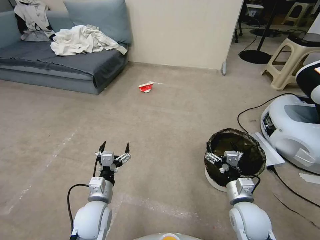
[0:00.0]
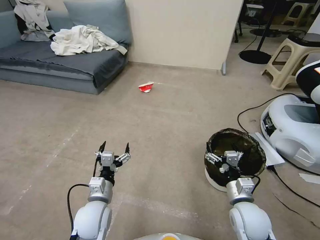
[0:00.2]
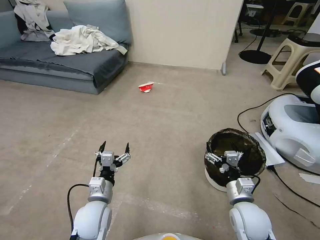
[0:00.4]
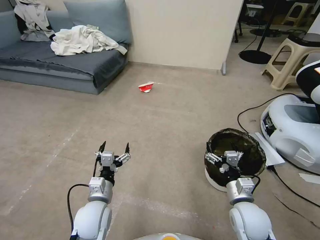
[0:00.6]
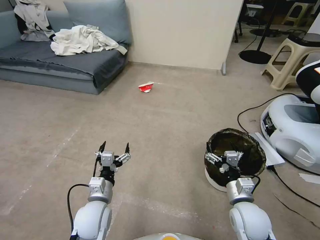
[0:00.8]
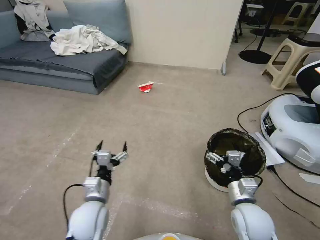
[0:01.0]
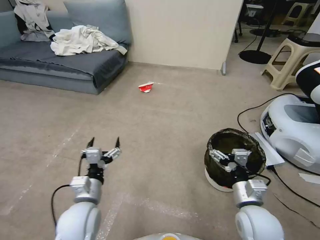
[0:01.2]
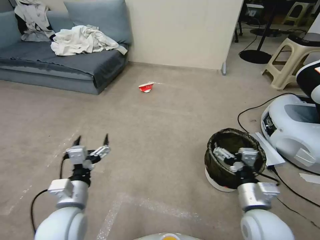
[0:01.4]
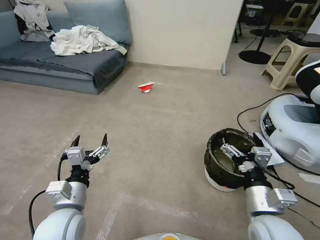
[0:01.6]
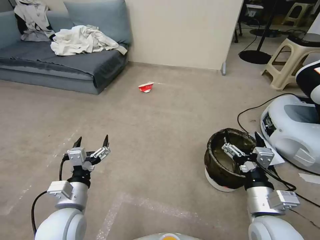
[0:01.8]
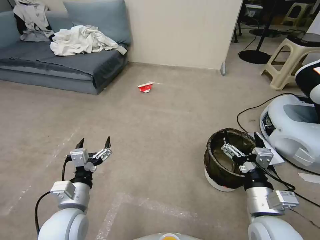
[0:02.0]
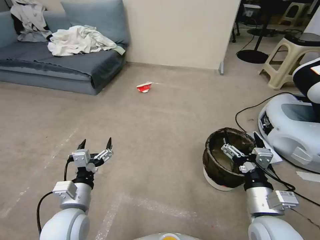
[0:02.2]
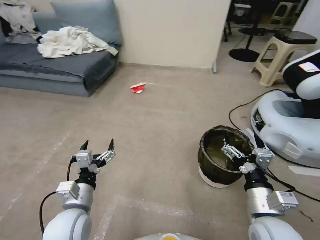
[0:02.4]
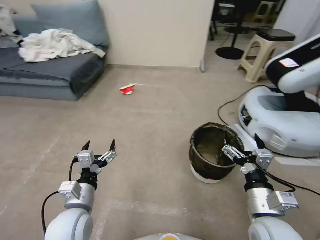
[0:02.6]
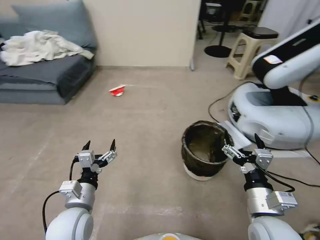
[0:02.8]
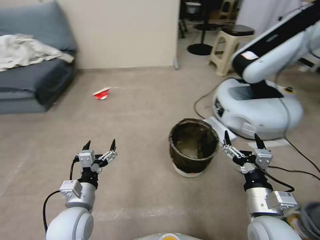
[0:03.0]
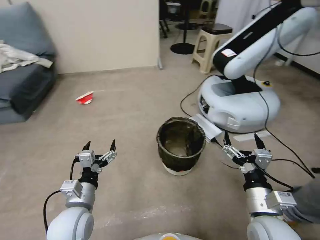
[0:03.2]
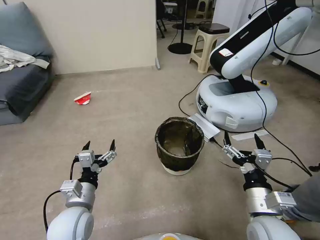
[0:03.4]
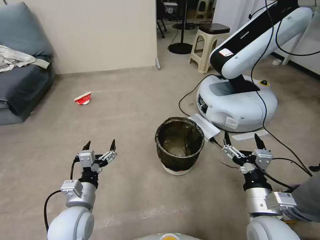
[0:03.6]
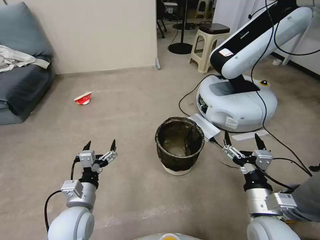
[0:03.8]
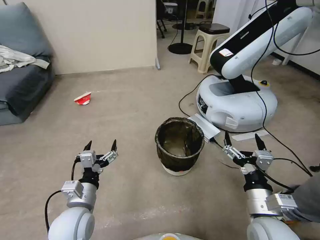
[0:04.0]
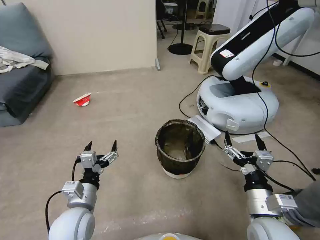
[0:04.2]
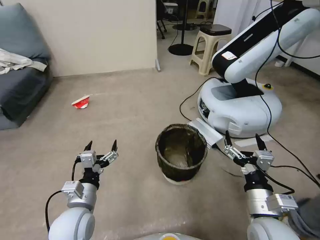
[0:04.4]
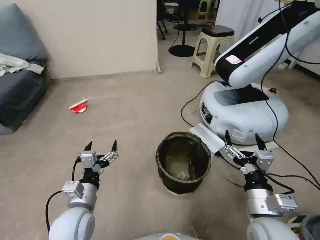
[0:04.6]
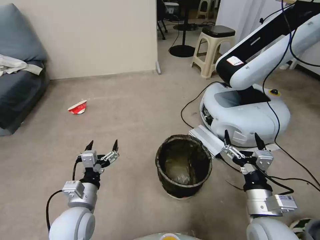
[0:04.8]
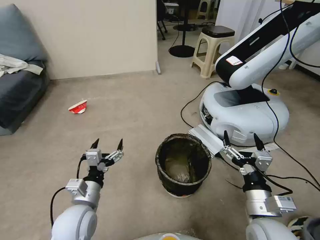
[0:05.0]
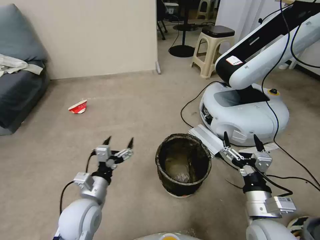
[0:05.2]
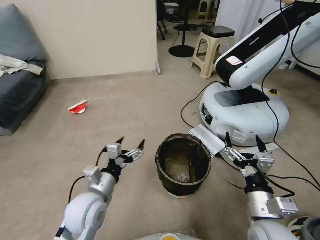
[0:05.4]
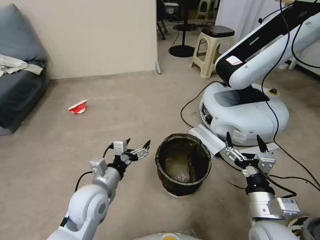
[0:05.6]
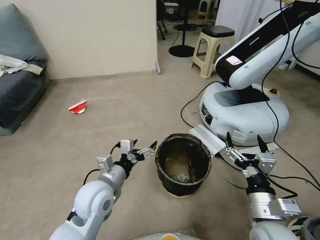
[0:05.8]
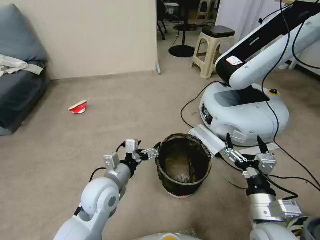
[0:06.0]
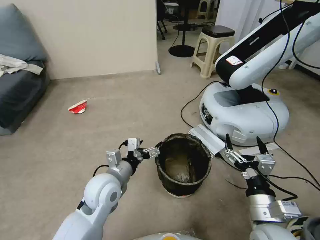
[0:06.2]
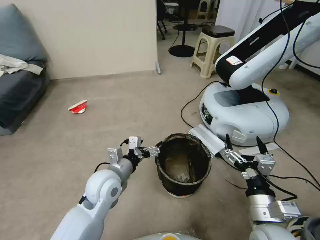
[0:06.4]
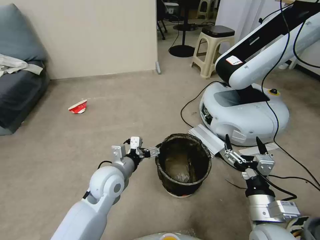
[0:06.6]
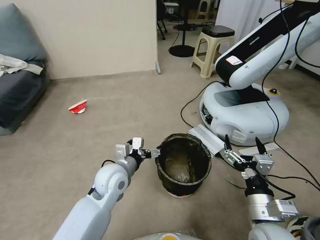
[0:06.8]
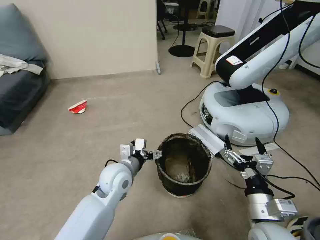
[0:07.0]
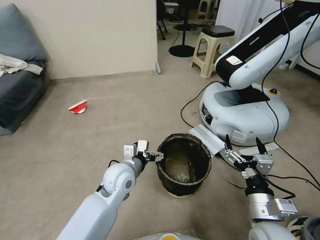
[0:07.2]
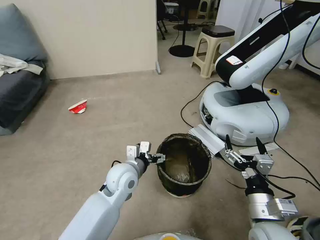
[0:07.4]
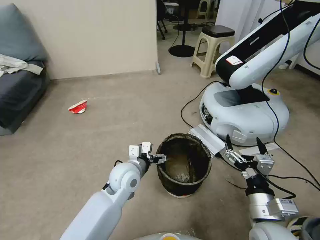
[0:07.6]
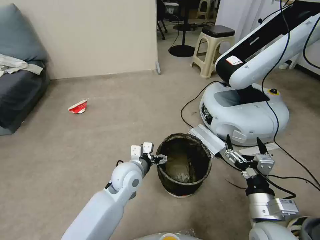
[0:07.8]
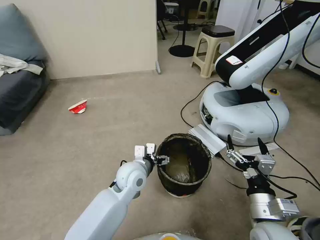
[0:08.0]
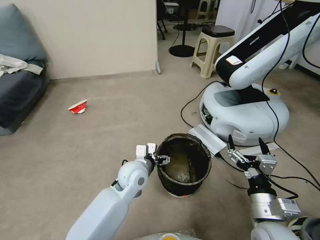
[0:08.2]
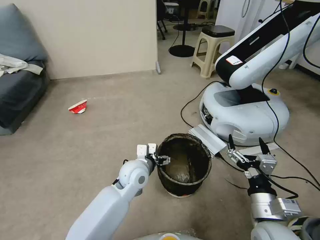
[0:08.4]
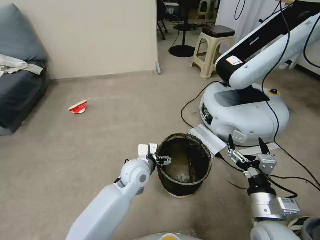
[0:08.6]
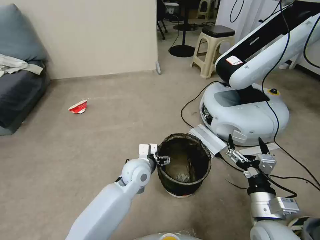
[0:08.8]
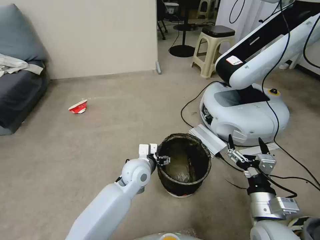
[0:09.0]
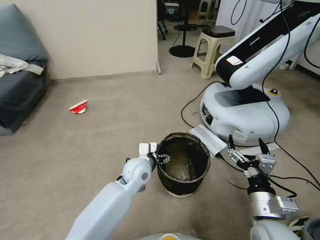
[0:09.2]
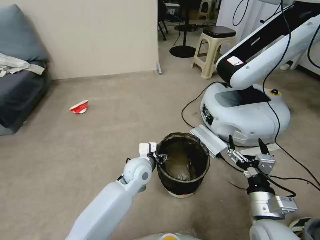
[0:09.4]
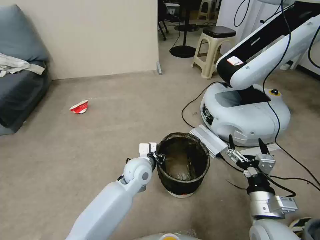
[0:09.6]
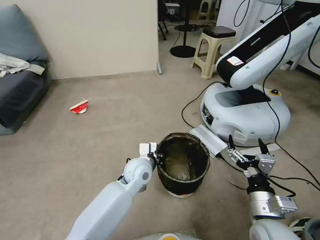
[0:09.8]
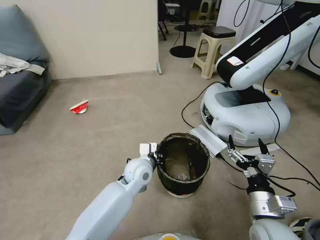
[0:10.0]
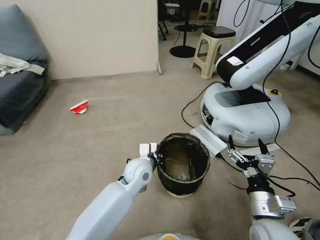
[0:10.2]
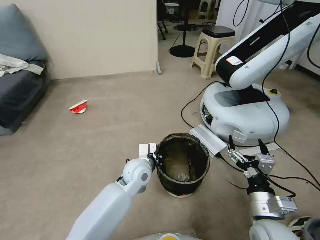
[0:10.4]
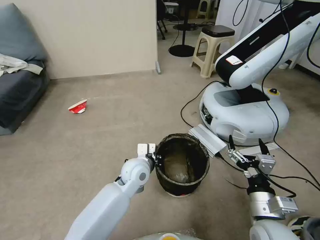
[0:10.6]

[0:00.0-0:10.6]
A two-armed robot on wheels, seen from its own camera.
Task of the whole recording: Pick up the trash can from the floor.
0:04.6 to 0:06.0: The left gripper heads forward and to the right, covering some 10 cm.
0:06.0 to 0:07.6: The left gripper is displaced forward and to the right by some 10 cm.
0:07.6 to 0:09.0: The grippers move only a little.
0:09.0 to 0:10.6: The left gripper closes.

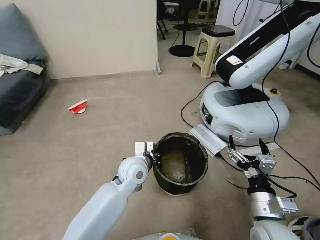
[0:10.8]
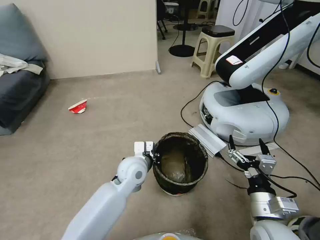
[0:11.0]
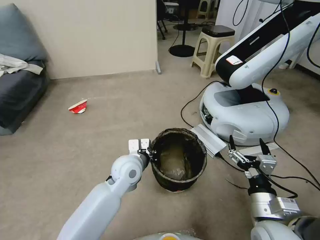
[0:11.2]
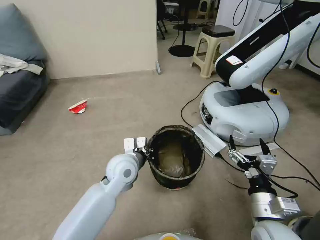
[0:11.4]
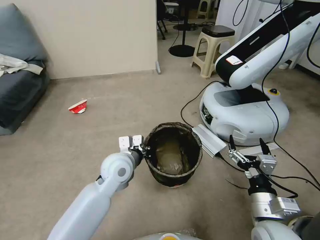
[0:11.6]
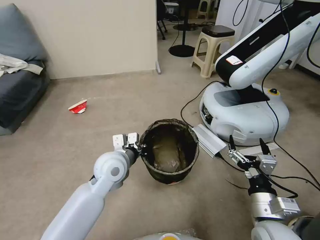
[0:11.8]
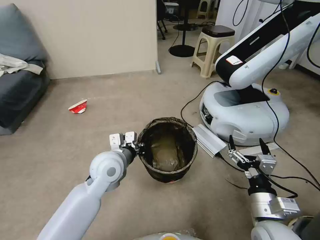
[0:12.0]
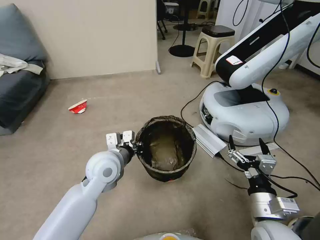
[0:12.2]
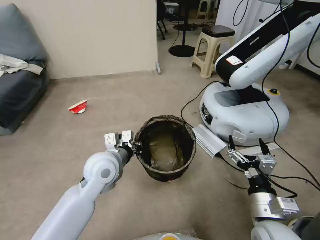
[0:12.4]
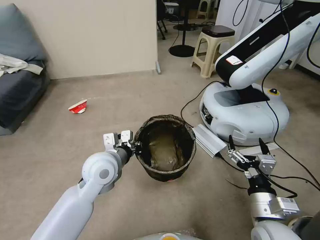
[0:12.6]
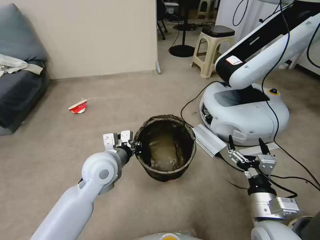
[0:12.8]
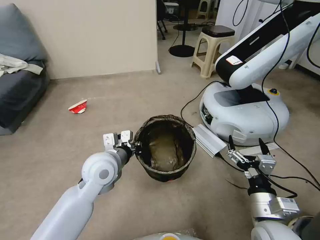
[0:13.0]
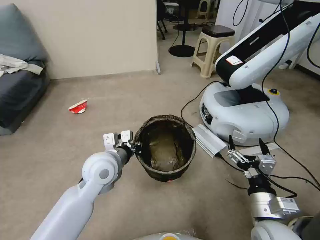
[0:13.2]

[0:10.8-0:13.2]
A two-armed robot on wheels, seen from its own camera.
Task of the whole recording: Pick up the trash can from the floor.
0:10.8 to 0:12.0: The left gripper heads to the left and upward, covering roughly 10 cm.
0:12.0 to 0:13.2: The grippers stay close to where they were, moving slightly.

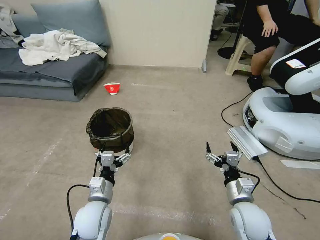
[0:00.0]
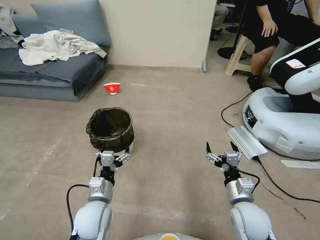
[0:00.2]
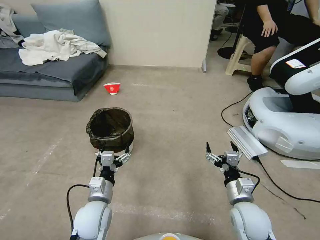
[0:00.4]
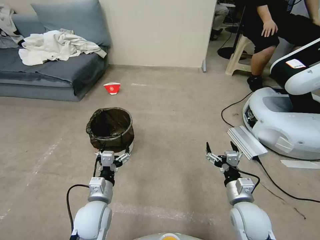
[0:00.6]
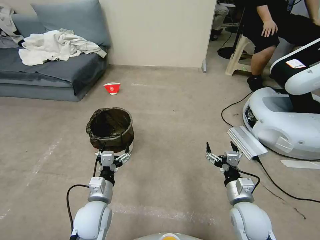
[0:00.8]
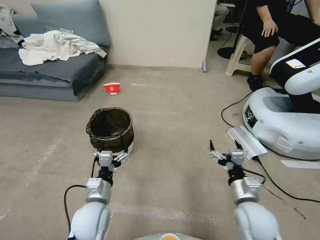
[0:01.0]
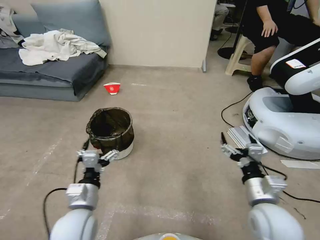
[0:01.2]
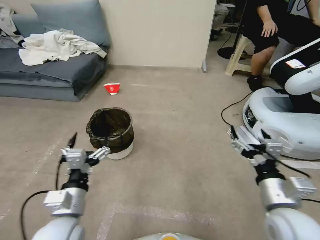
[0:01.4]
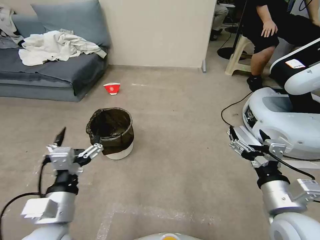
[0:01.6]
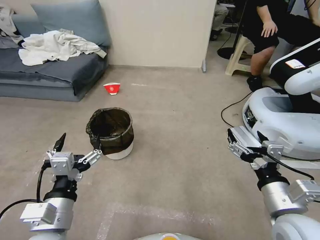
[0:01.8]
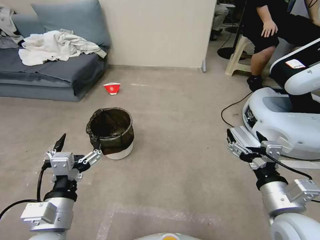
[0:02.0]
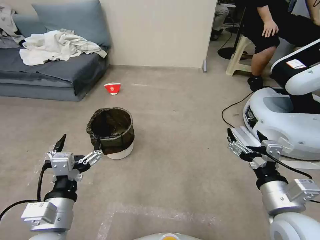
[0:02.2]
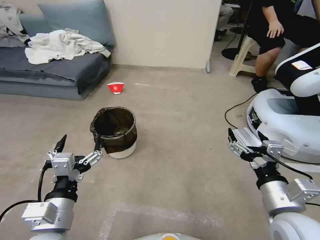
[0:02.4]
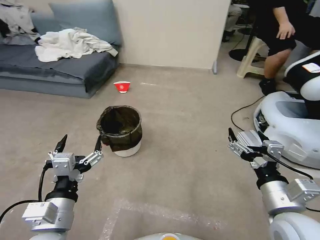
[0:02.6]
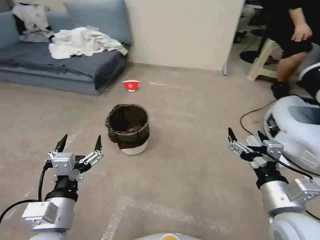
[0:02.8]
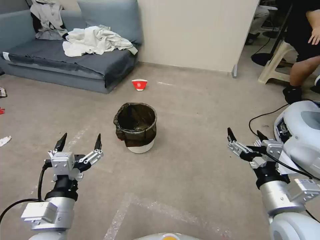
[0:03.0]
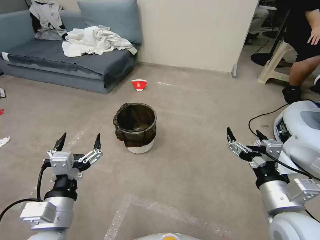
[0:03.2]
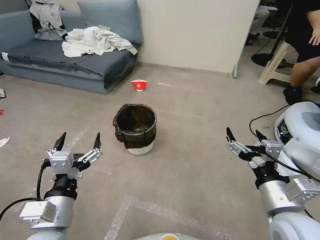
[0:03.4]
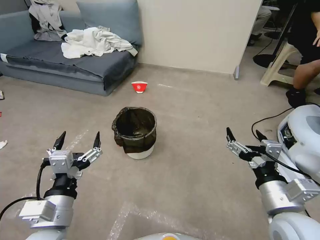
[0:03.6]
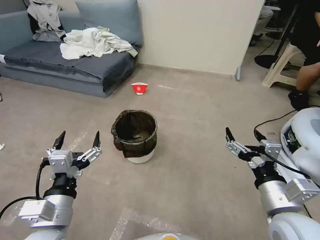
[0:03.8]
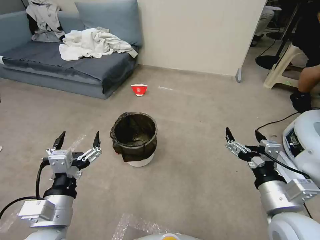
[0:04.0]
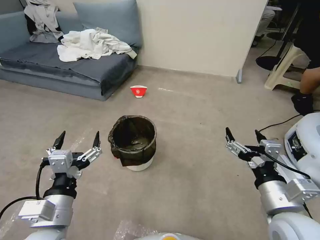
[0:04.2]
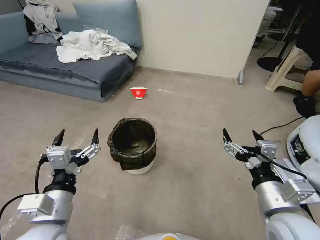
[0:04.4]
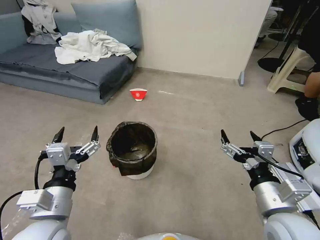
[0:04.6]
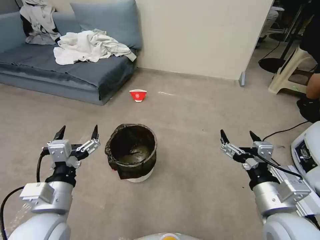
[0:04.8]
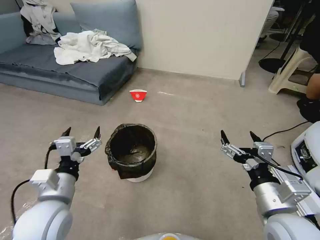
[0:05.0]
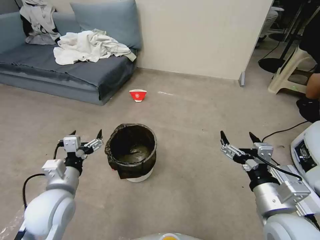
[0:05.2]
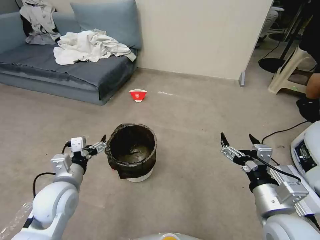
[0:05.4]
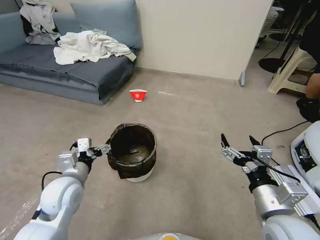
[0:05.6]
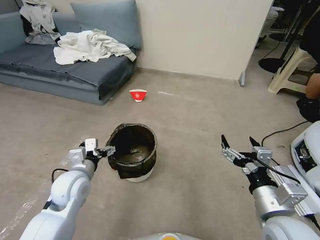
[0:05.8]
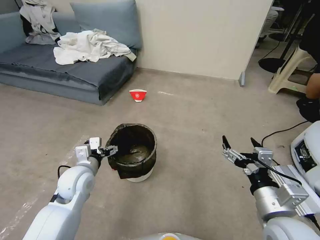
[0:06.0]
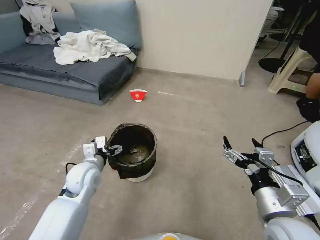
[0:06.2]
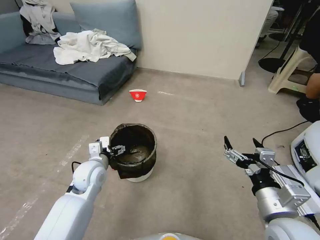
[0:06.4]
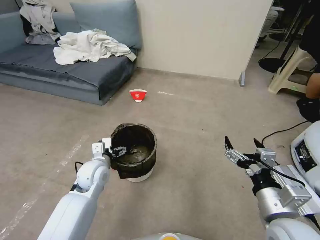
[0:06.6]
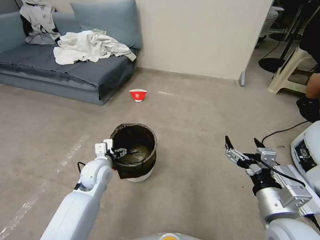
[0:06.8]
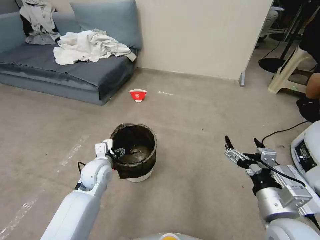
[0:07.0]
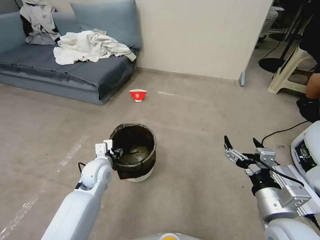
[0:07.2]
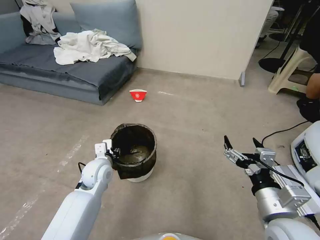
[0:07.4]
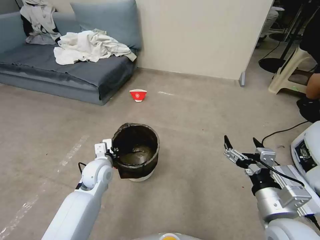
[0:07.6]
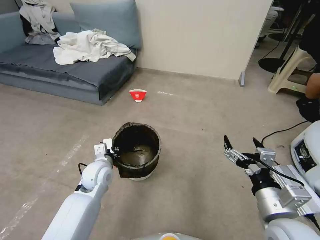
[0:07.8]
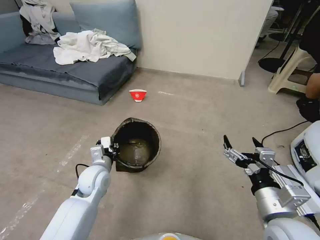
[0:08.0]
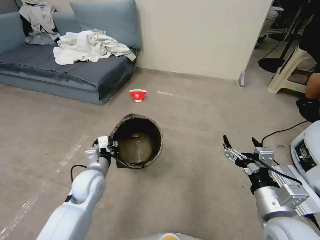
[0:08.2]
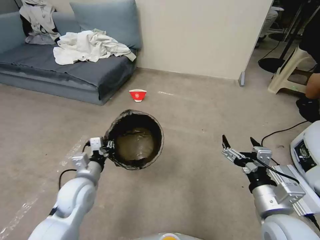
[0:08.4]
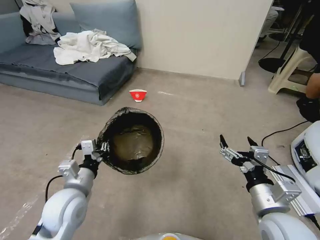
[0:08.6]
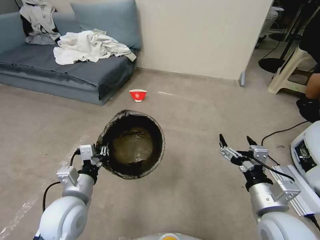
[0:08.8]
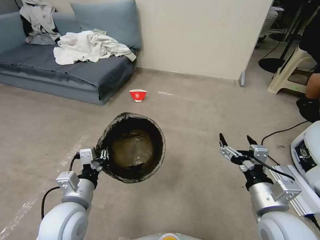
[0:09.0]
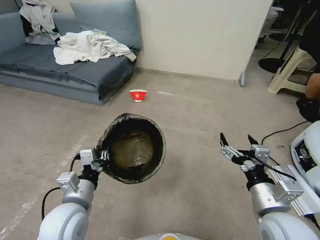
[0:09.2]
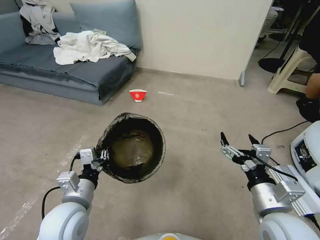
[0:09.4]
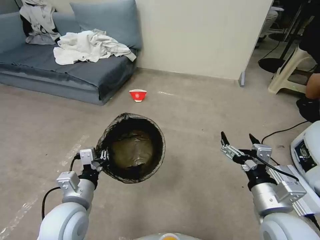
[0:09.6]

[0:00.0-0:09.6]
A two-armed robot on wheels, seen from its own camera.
Task of the whole recording: Pick up the trash can from the floor.
0:04.8 to 0:06.4: The left gripper moves forward and downward, some 20 cm.
0:06.4 to 0:08.0: The left gripper closes up.
0:08.0 to 0:09.6: The left gripper moves backward and upward, approximately 15 cm.
